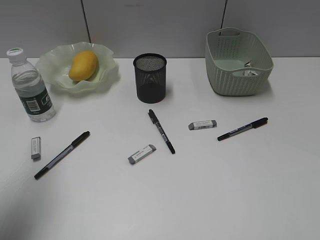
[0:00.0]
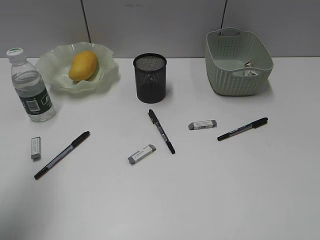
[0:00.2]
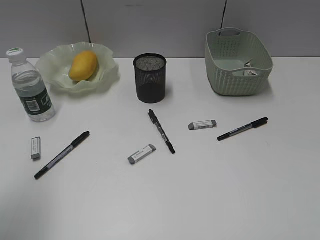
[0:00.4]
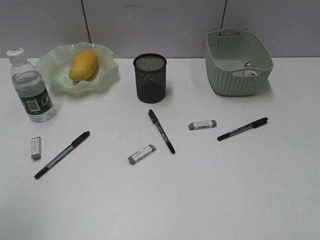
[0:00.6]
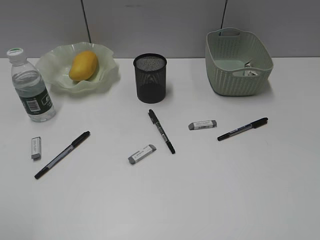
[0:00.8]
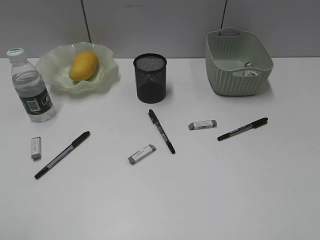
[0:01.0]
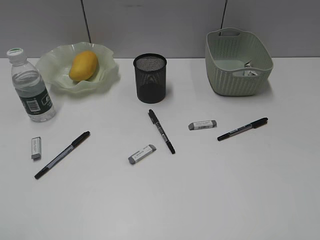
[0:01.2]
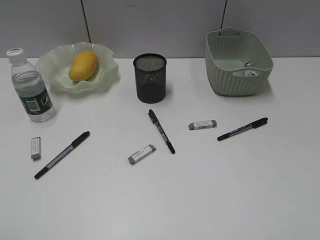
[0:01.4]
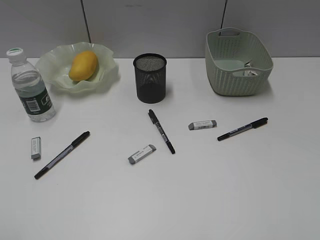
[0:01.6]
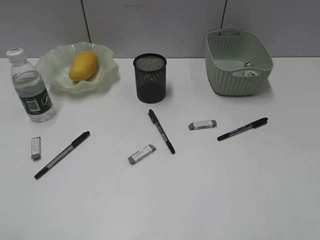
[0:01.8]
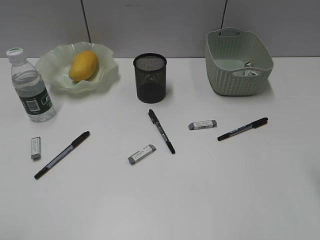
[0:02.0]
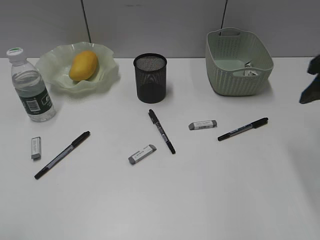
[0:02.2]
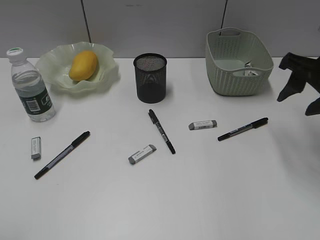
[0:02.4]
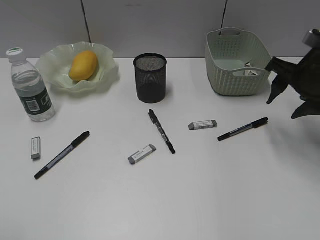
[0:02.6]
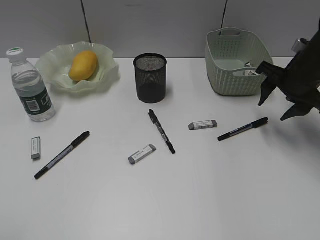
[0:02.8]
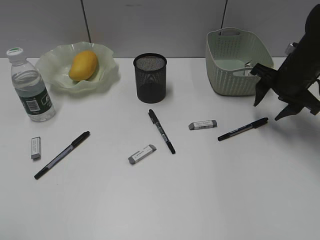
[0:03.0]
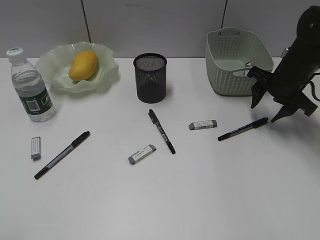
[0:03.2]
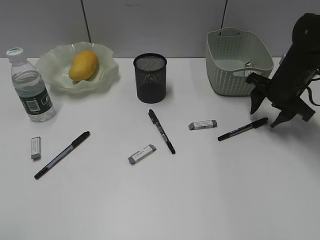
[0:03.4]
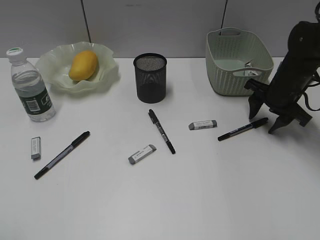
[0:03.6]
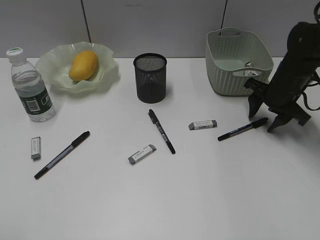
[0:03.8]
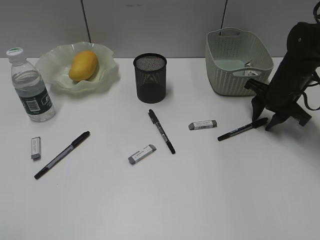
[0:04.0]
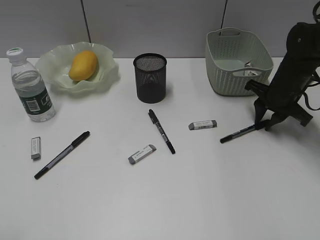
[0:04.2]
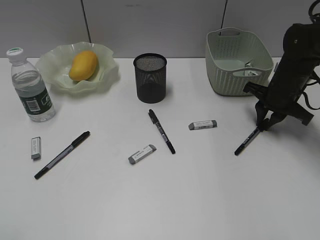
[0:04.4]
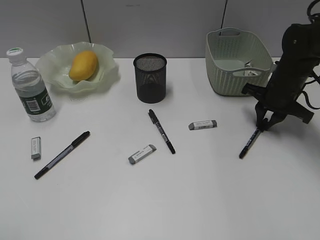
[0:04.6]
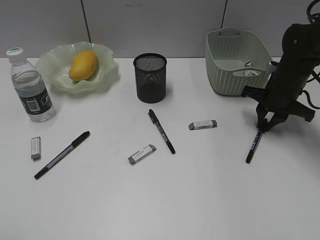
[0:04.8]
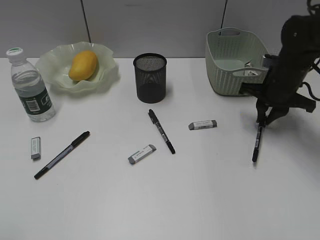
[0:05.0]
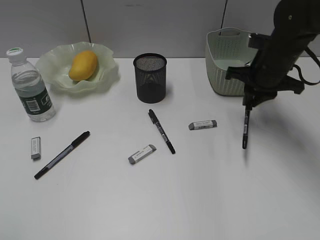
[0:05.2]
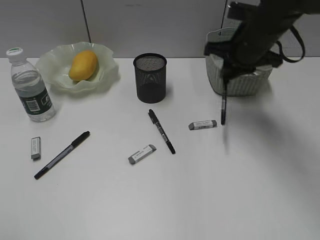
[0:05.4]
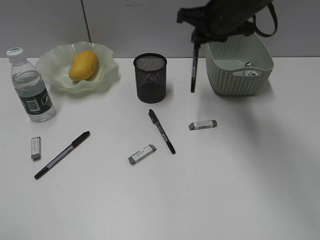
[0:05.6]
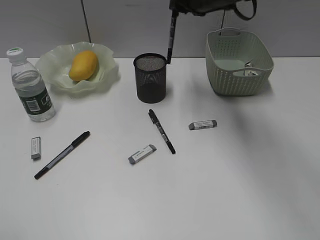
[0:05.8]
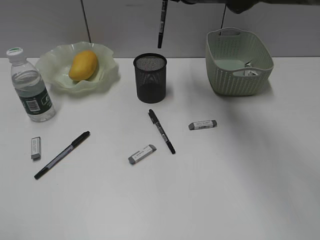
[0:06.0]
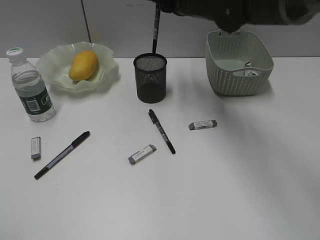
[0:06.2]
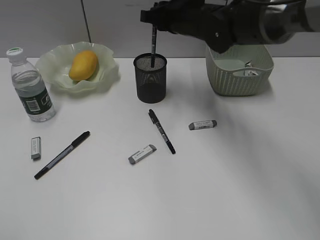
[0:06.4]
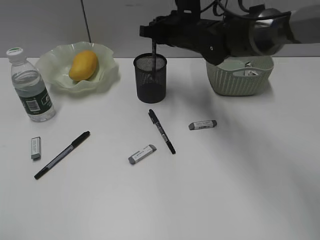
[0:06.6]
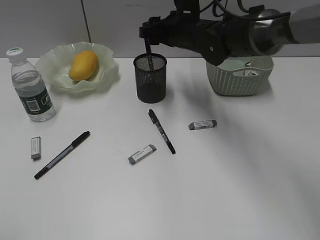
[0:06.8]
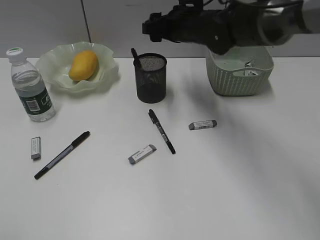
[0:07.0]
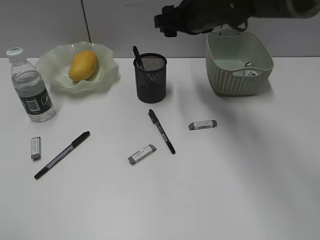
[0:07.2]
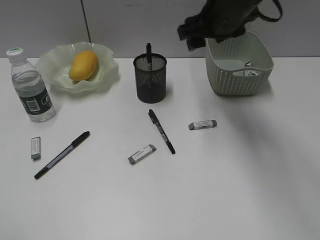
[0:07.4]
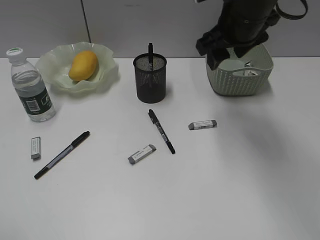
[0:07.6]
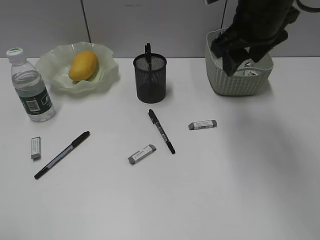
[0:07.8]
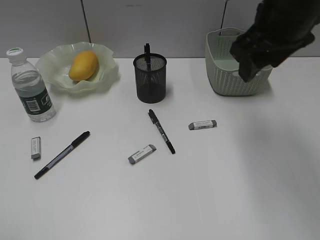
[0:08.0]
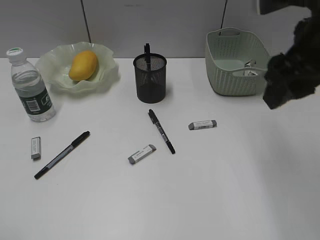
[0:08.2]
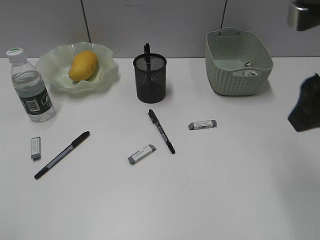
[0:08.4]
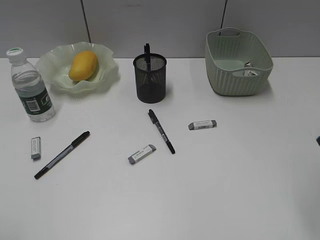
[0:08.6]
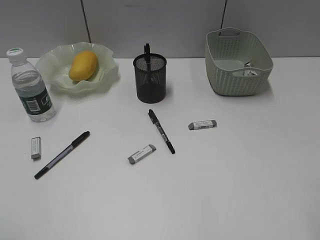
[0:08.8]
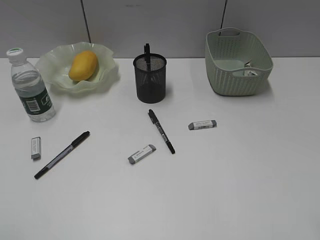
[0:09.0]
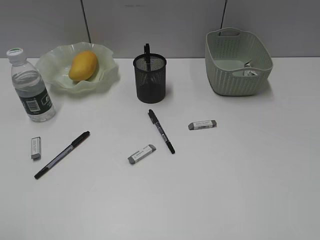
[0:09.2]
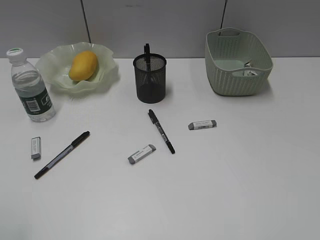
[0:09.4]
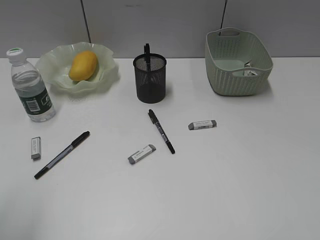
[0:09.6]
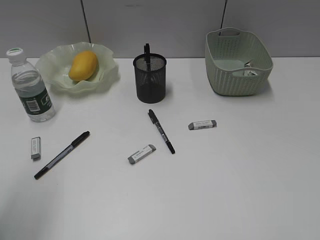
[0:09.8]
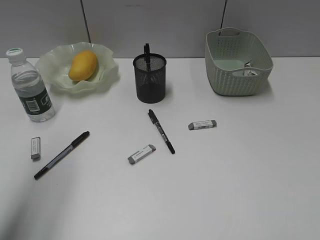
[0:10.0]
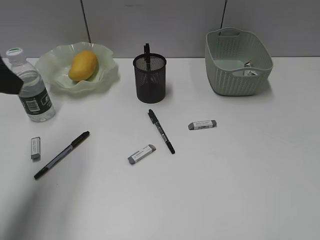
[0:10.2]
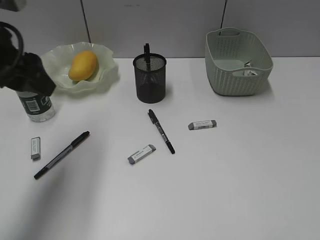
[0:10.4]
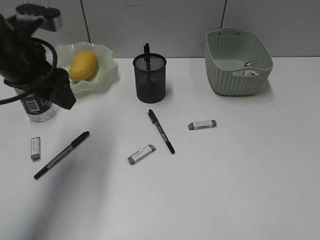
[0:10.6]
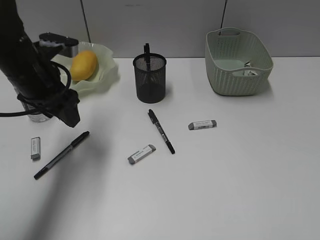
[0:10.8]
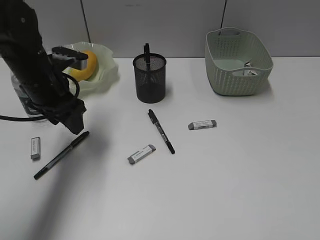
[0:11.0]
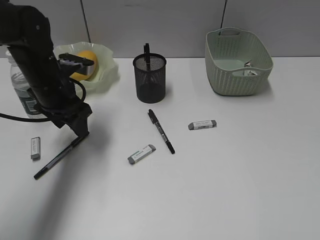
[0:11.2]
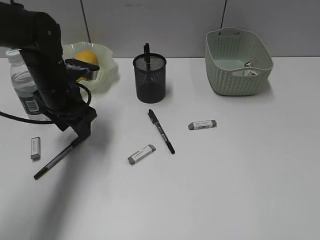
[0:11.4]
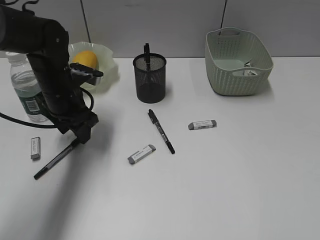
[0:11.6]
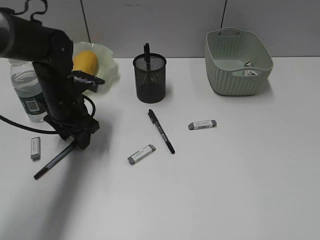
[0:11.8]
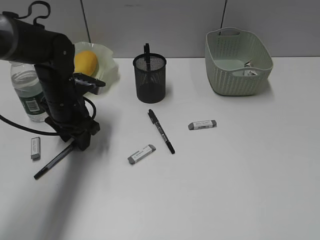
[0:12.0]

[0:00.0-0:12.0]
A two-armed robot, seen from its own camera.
Step, 0.0 to 4.4 s: Grasp the black pen with right gripper.
Step, 4.6 to 6.8 s: Place the black pen in pen holder with right gripper.
0.0 to 1.6 s: The left gripper moves backward, roughly 20 cm.
1.6 to 3.0 s: The right gripper heads forward, covering roughly 35 cm.
3.0 to 4.4 s: The right gripper moves downward, approximately 5 cm, and closes up.
4.4 to 6.0 s: The right gripper shifts approximately 25 cm upward and to the left.
6.0 to 7.6 s: The right gripper heads backward, covering roughly 5 cm, goes downward and returns, approximately 10 cm each way, and opens up.
7.6 to 9.0 s: The right gripper is displaced backward and to the right by roughly 35 cm.
9.0 to 10.4 s: The left gripper is displaced forward by roughly 25 cm.
10.4 to 12.0 s: The left gripper shifts roughly 20 cm downward and forward.

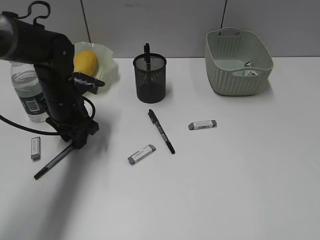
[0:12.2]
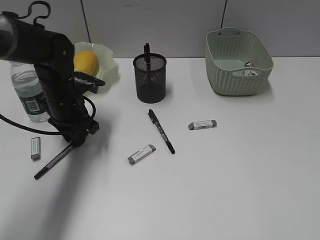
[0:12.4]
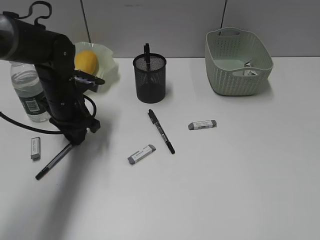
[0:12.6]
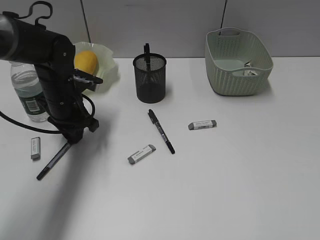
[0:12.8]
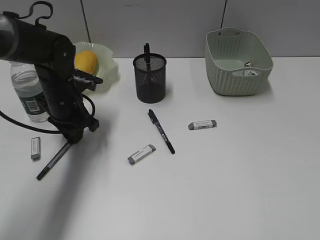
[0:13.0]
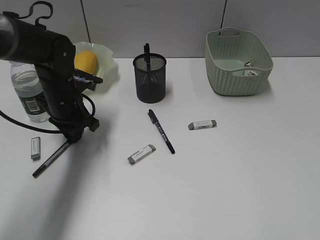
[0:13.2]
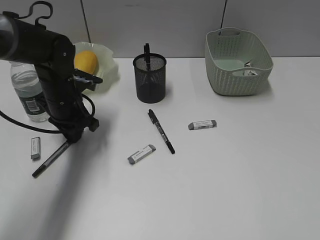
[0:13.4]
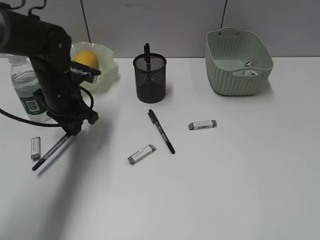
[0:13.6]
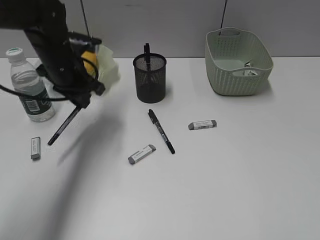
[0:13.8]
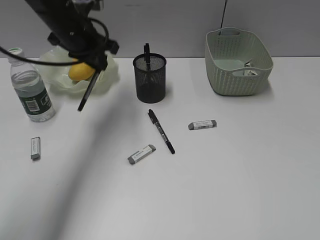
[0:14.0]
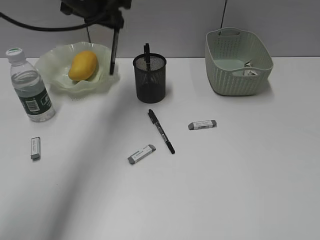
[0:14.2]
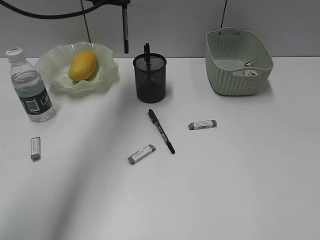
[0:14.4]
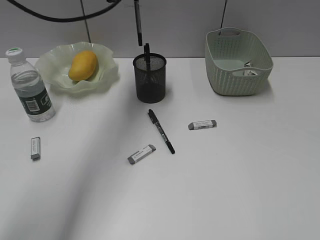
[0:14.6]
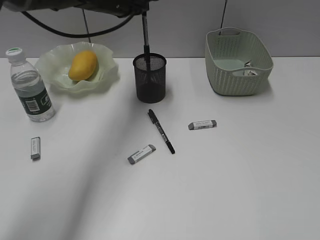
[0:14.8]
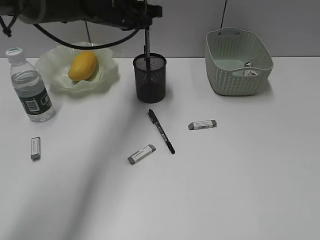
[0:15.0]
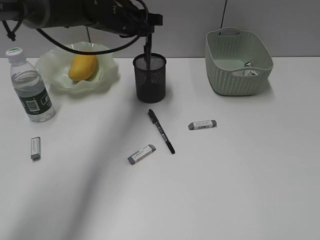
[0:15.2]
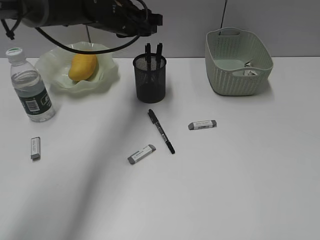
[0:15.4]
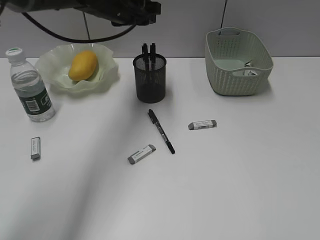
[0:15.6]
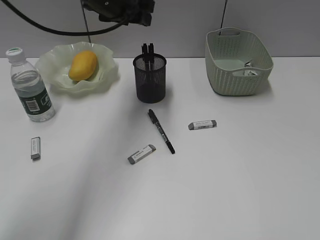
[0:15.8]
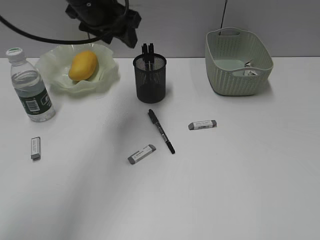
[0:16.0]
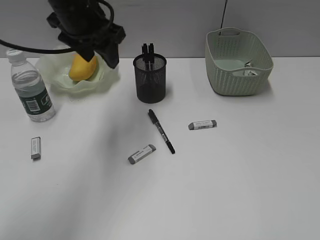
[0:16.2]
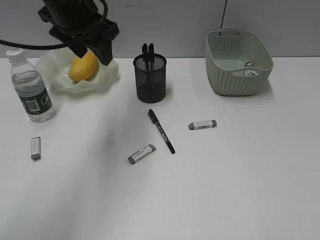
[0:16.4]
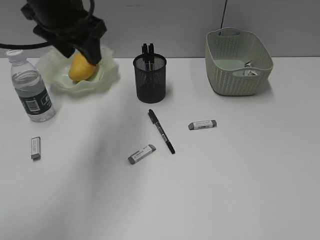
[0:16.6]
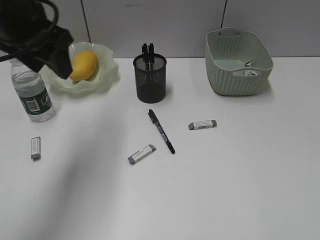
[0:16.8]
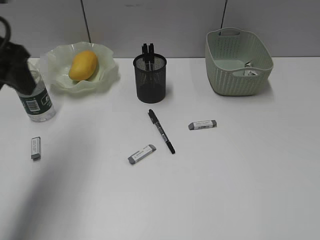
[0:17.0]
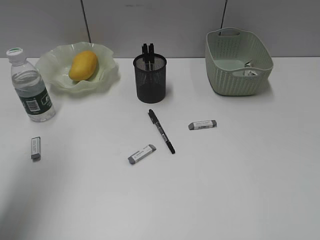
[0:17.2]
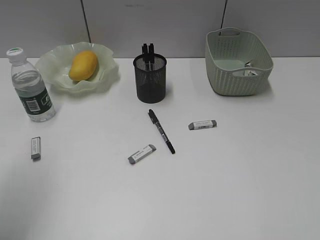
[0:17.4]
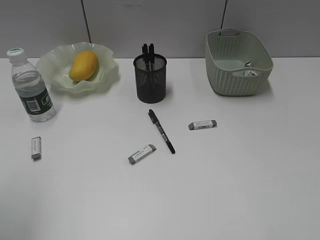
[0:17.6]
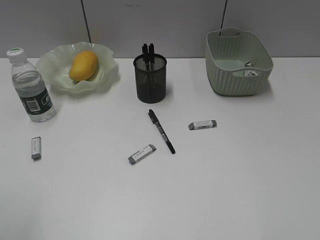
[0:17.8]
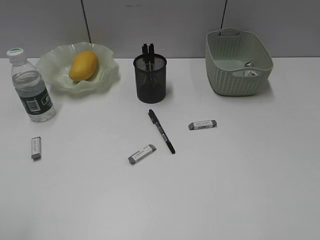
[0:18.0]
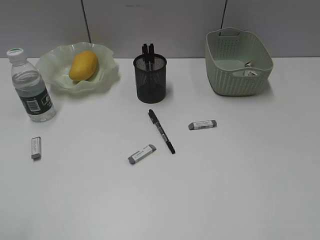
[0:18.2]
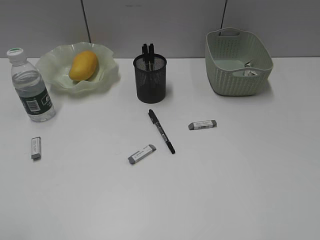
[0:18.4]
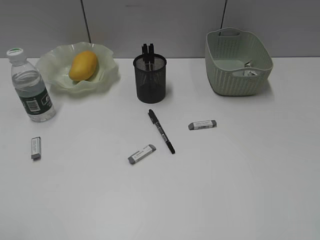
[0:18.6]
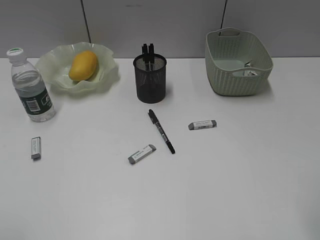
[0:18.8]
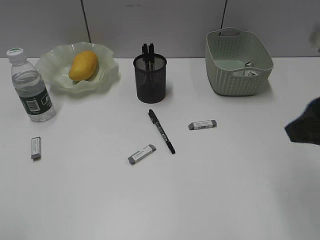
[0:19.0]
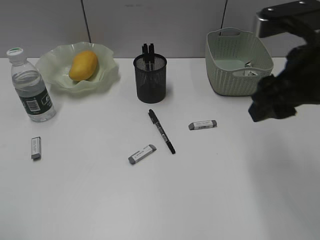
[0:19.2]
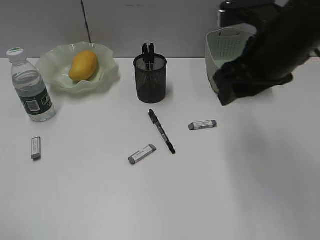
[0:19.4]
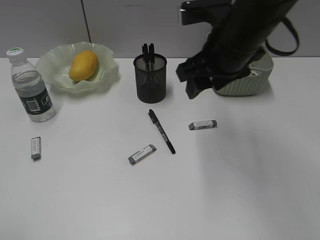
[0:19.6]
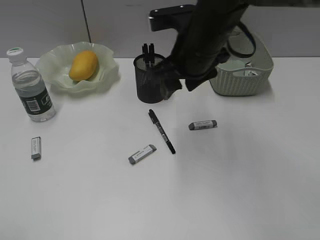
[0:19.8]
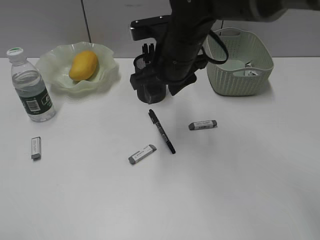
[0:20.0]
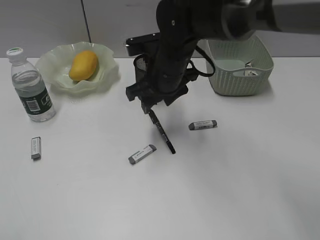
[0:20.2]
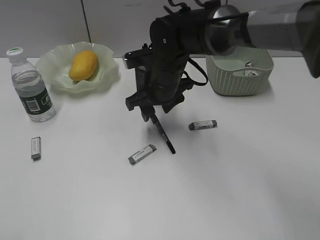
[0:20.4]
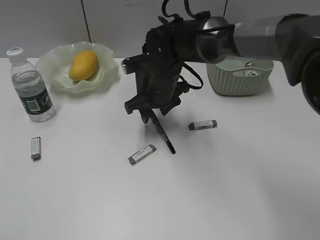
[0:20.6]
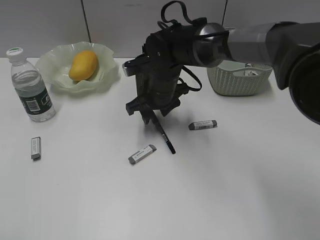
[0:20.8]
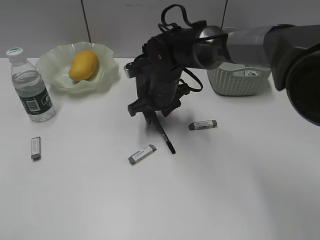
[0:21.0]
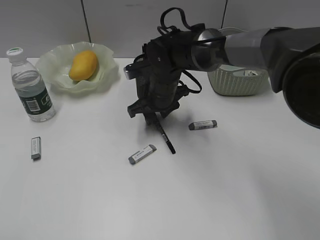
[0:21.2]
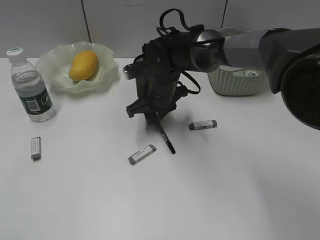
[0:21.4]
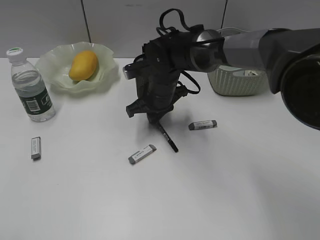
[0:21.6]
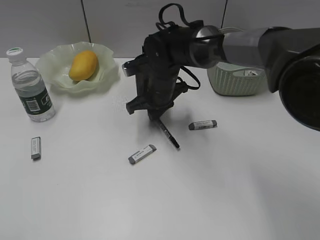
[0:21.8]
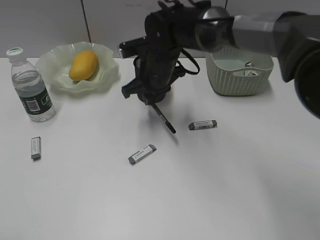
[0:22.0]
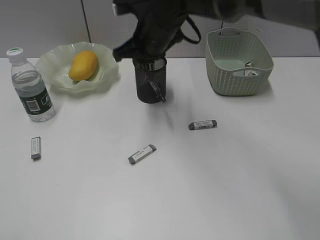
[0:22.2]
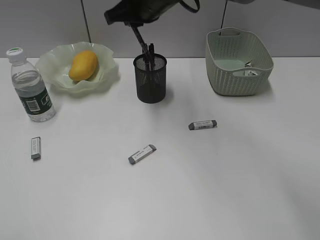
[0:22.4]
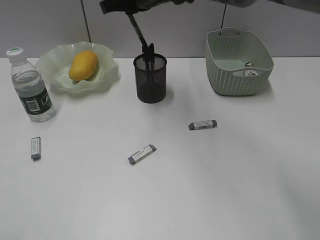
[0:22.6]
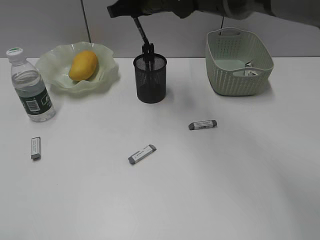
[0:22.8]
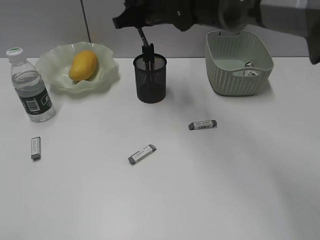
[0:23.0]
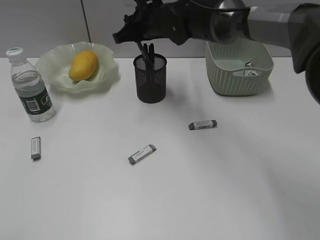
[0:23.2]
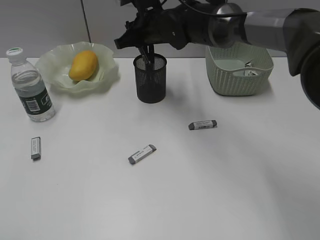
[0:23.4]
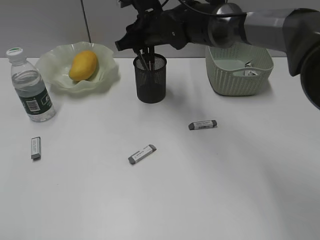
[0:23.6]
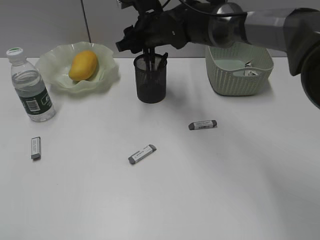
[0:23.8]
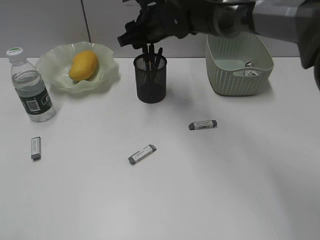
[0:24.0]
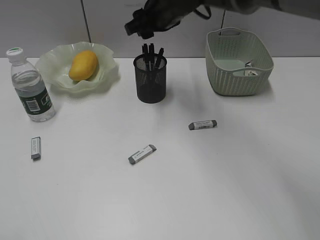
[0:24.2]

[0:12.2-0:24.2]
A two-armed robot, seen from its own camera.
Step, 13.4 to 15.2 s: Place the black pen in pen holder with left gripper.
Step, 15.4 to 21.6 s: Grasp the black pen with right gripper.
Step, 21.8 to 24.0 s: Place the black pen in pen holder with right gripper.
12.2 to 13.8 s: The left gripper moves upward, approximately 5 cm, and closes.
13.8 to 15.2 s: The left gripper heads to the right and forward, covering about 10 cm.
15.2 to 16.6 s: The left gripper goes approximately 15 cm backward, upward and to the left, and opens its fingers.
16.6 to 18.2 s: The left gripper heads backward and to the left, covering some 40 cm.
18.2 to 19.8 s: The right gripper shifts approximately 40 cm forward and to the left.
19.8 to 21.2 s: The right gripper shifts some 15 cm downward and forward.
21.2 to 22.6 s: The right gripper travels upward by some 15 cm, and closes.
22.6 to 24.2 s: The right gripper opens.
